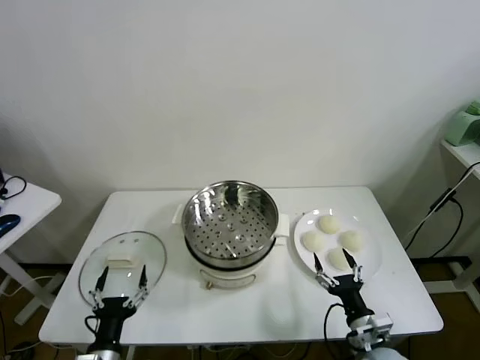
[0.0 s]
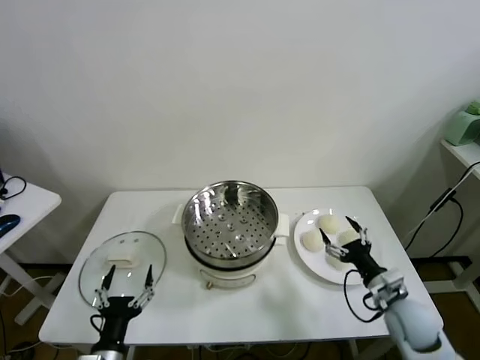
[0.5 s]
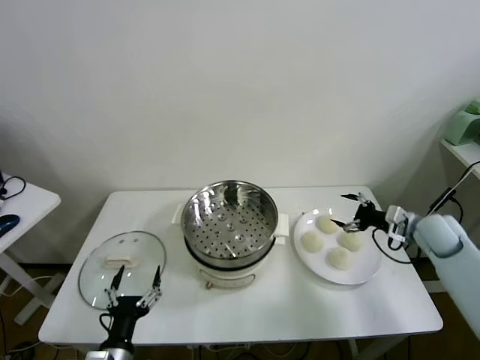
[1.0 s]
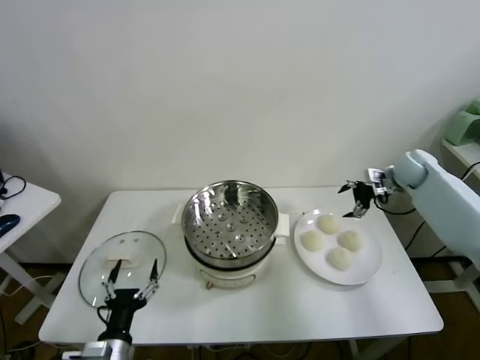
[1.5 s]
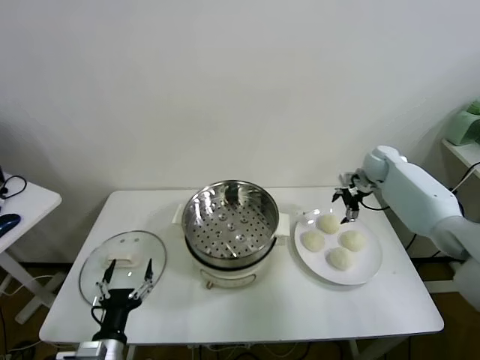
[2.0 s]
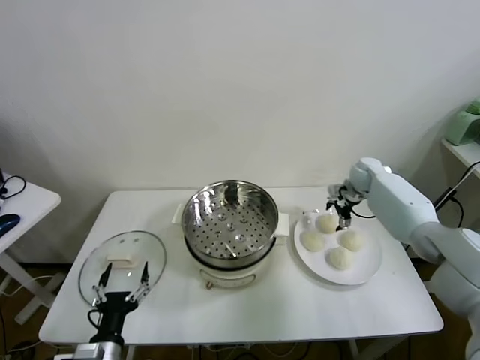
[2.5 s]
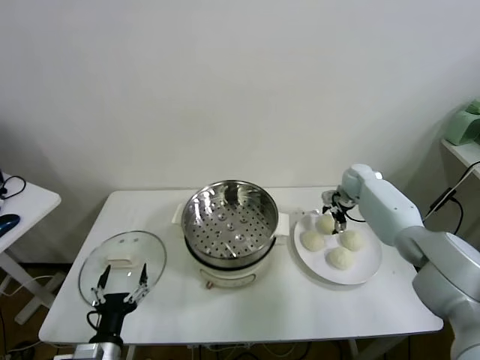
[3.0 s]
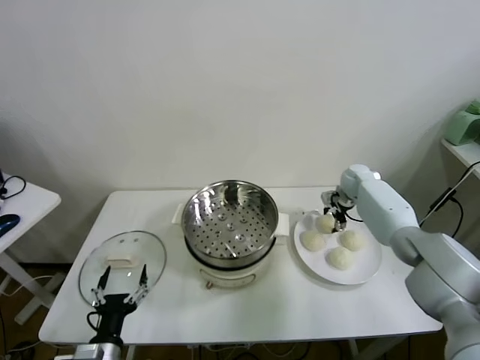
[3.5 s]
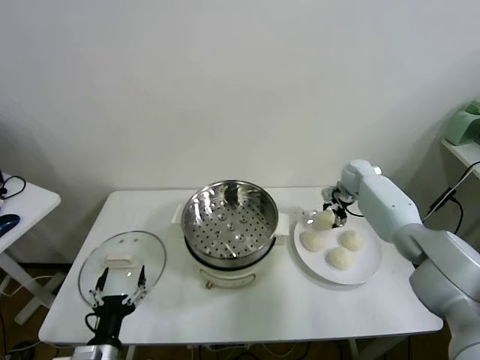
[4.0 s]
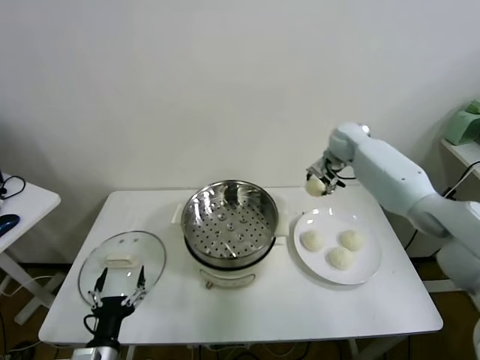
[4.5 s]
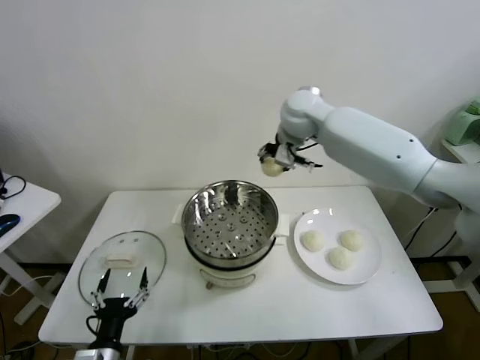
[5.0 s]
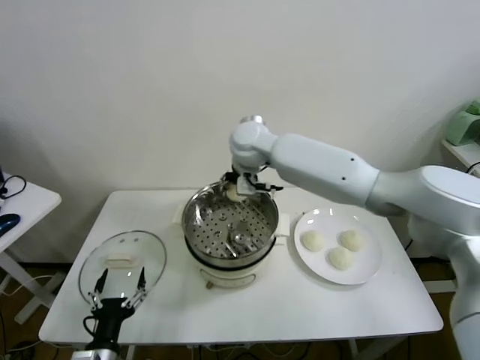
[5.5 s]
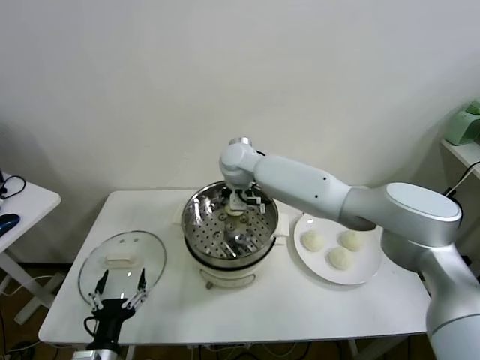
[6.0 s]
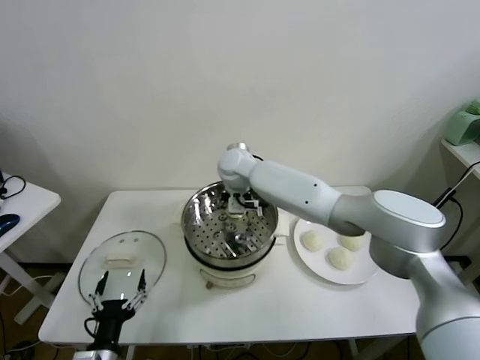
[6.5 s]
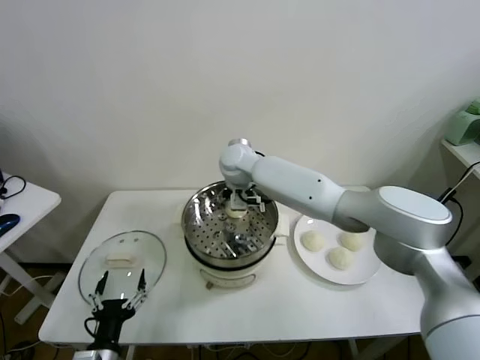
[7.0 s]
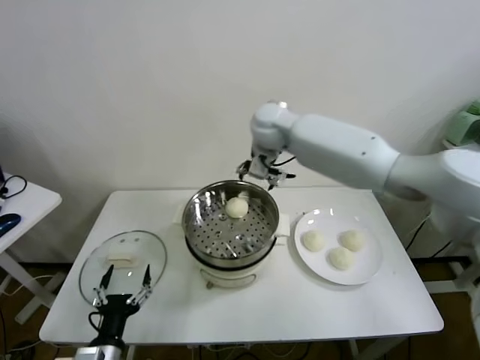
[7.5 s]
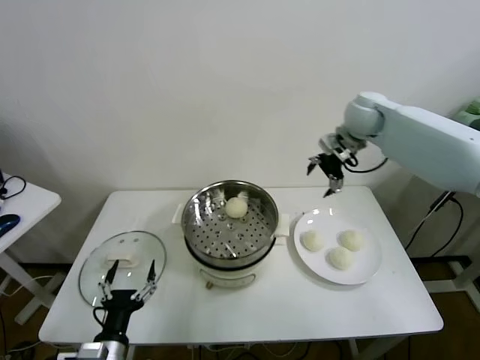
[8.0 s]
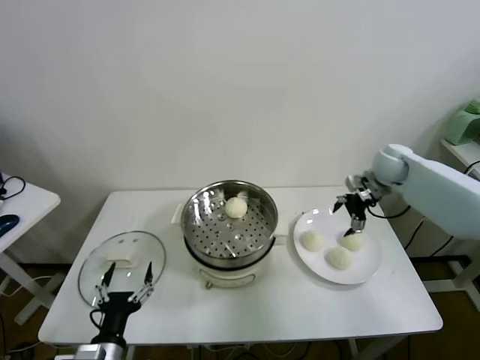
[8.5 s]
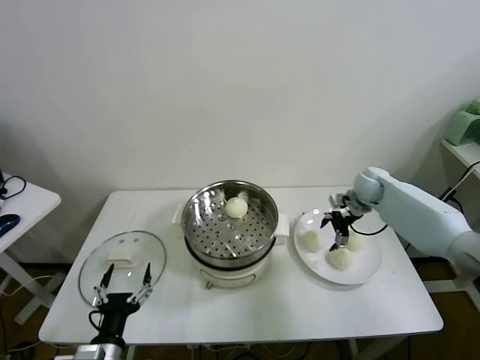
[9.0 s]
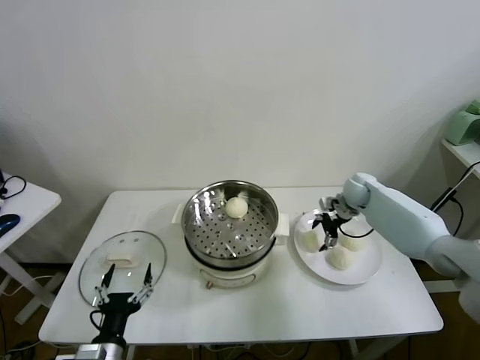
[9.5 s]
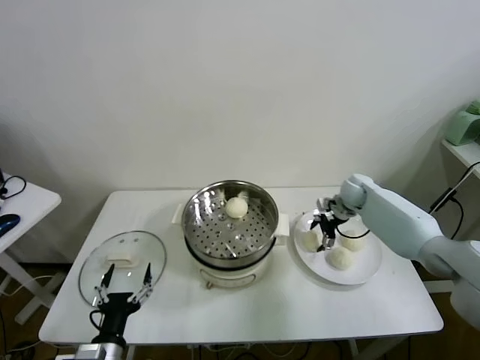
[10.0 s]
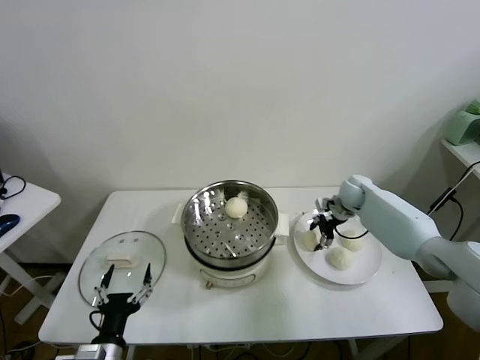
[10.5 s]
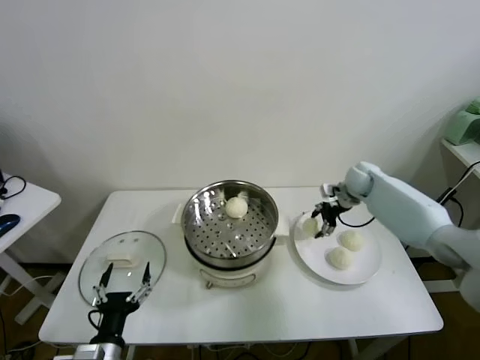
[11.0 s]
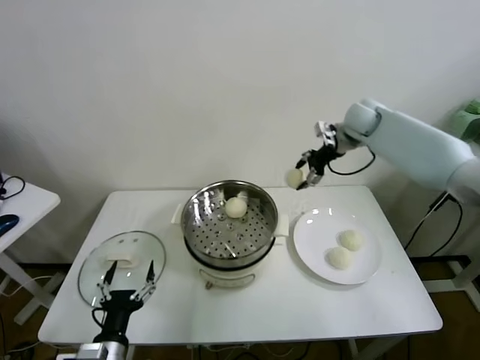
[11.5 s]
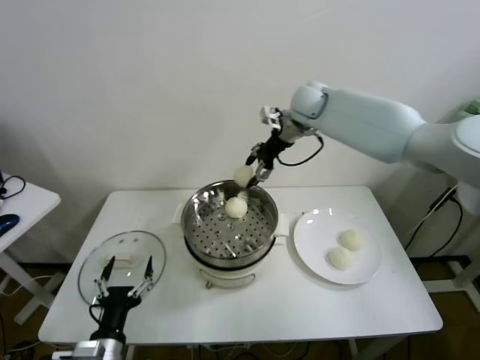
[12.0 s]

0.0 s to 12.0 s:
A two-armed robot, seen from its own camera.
Task of the whole recording: take steamed baozi put them in steamer.
Step, 0.0 to 3.5 s: Grasp the baozi in the plate with right gripper.
Step, 4.0 to 6.5 s: Place the baozi on the steamer with right gripper.
Step, 7.5 to 10.5 s: Grasp the baozi in the plate with right gripper.
2.0 to 4.0 s: The right gripper ends up about 5 cm from where it was, and closes up.
4.0 to 6.0 s: The right gripper travels to the left by some 35 cm.
6.0 to 8.0 s: The right gripper travels to the right by some 30 cm, and opens.
8.0 to 10.0 s: The right gripper moves downward, about 25 cm.
10.0 to 12.0 s: The right gripper heads upward and to the left, covering approximately 30 cm, and closes up.

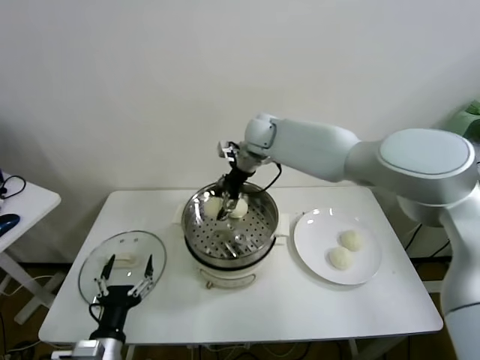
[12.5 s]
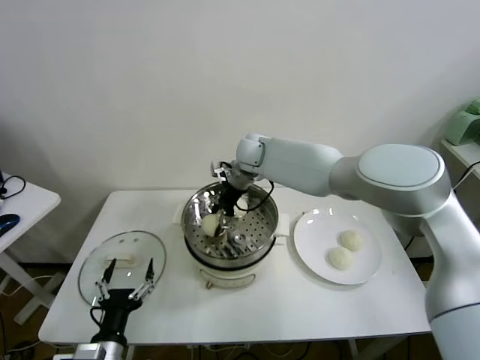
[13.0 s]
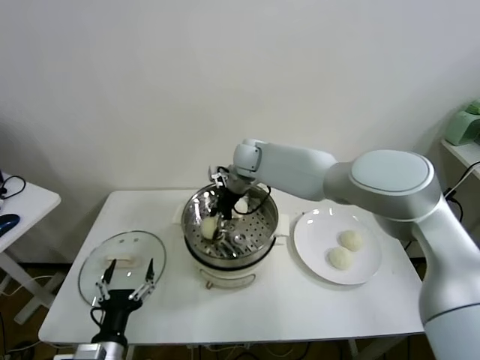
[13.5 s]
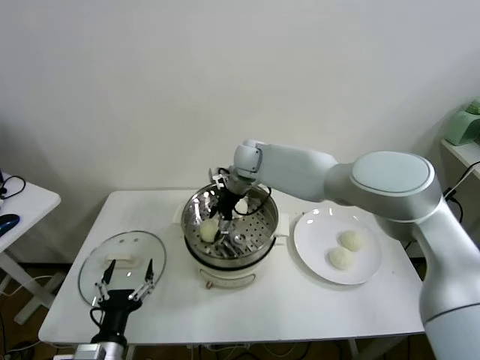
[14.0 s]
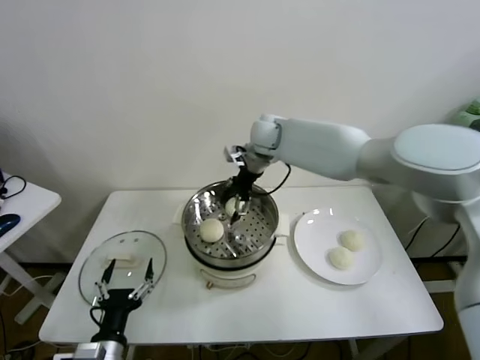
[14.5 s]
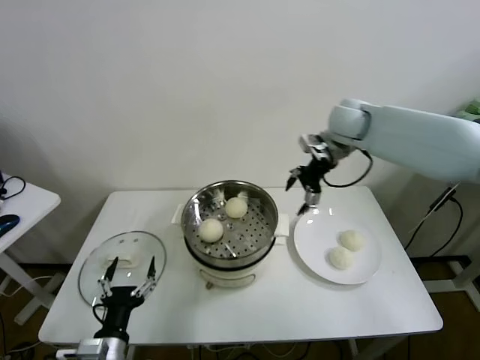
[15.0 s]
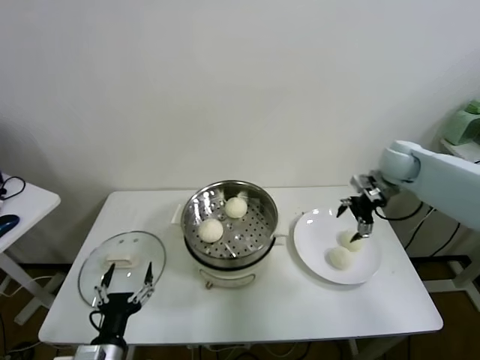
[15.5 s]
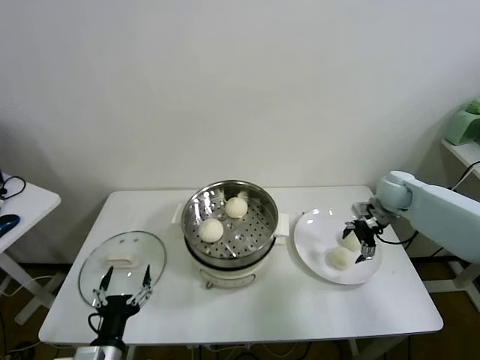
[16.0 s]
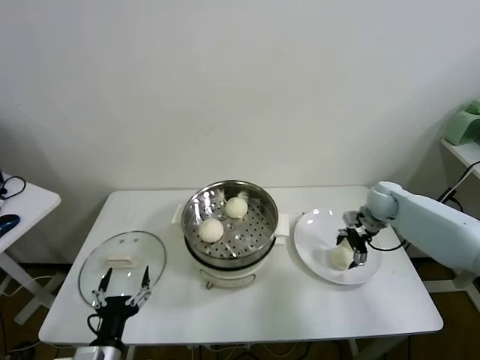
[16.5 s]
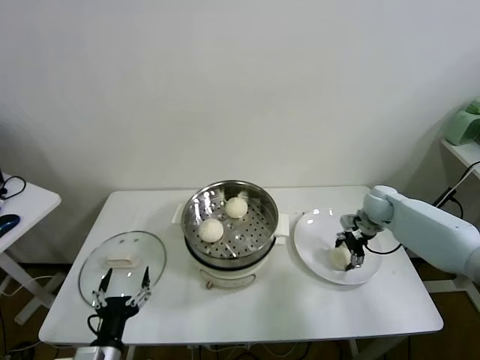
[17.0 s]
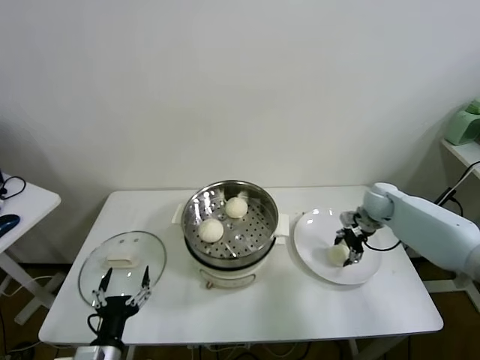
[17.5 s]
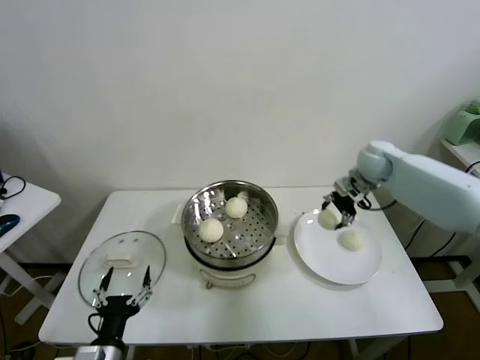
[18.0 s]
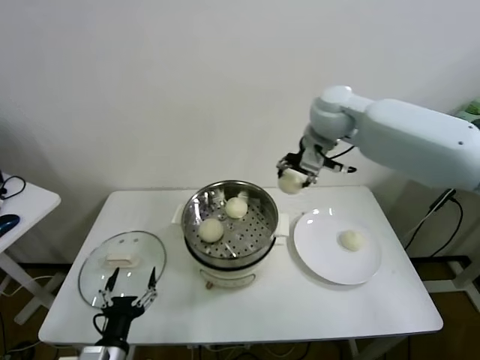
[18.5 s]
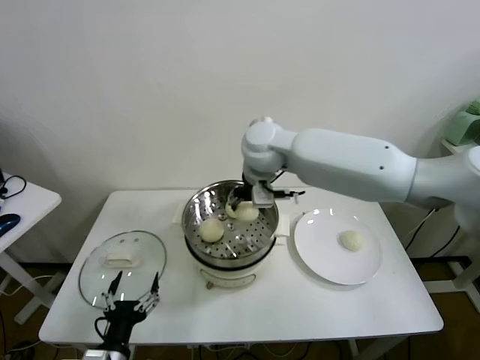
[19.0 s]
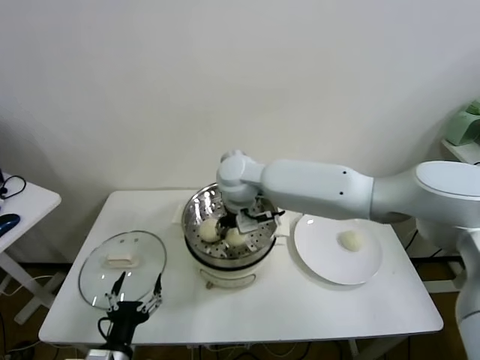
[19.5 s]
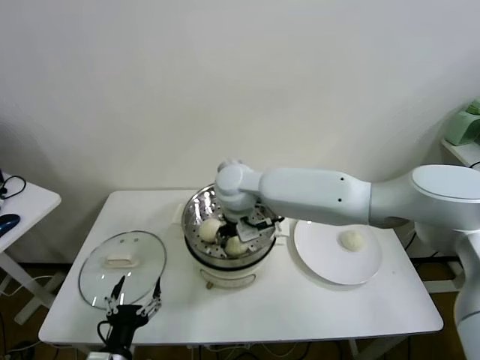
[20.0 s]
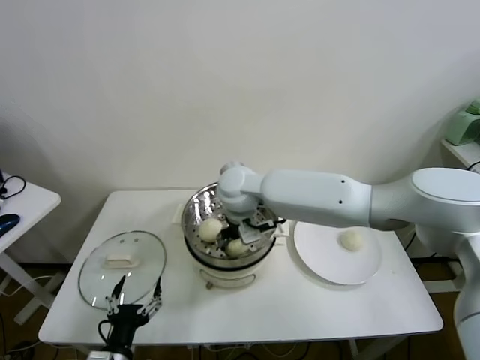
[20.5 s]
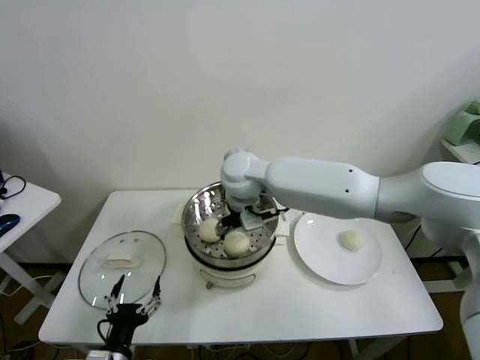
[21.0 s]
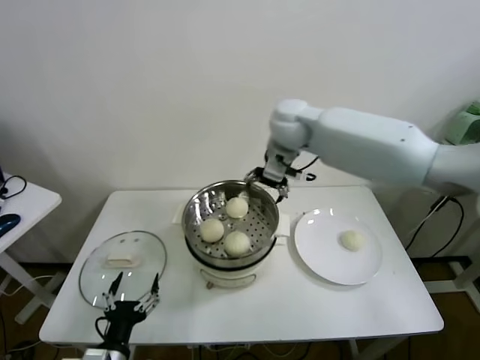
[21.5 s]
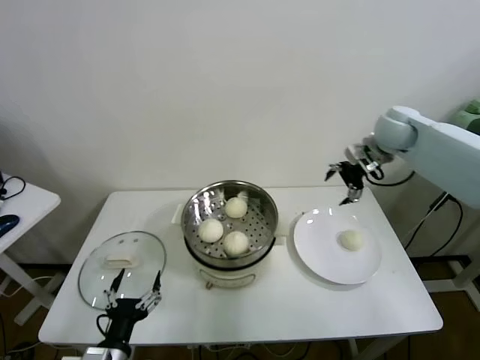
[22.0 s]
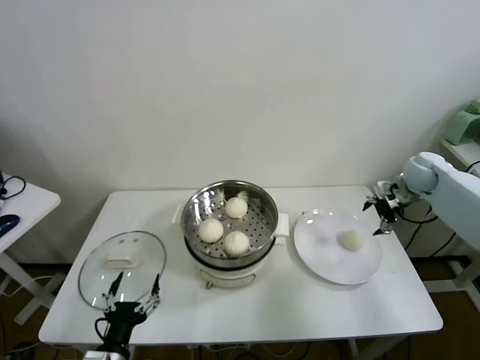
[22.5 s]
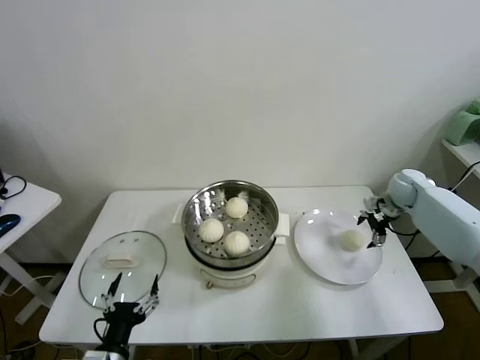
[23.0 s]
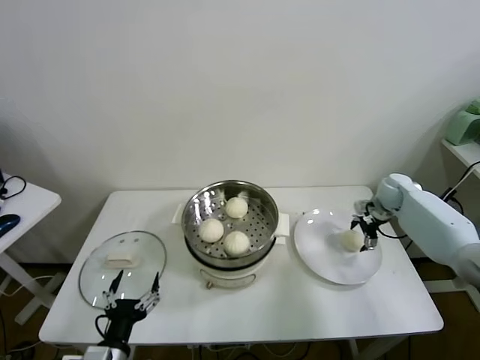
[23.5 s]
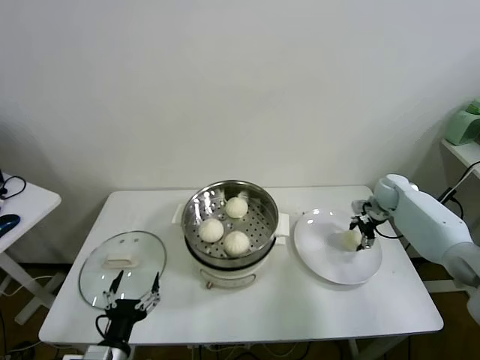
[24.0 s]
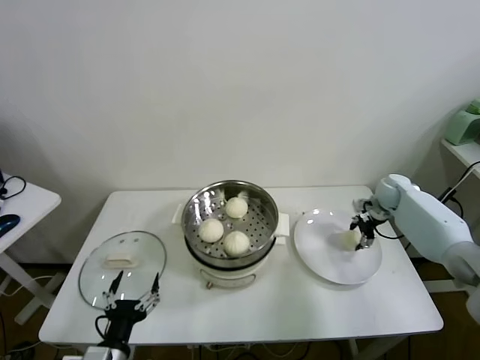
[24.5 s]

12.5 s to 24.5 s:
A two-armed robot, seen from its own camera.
Task of the whole recording: take steamed baozi put them in steamer.
Step, 14.5 to 17.0 s: Grasp the baozi in the plate with right gripper.
Step, 17.5 to 20.5 s: Place the baozi on the steamer with right gripper.
12.5 to 14.5 s: The right gripper travels downward and back again, about 5 cm each way, and opens.
14.5 to 16.5 s: The right gripper heads to the right and downward, covering some 35 cm.
16.5 to 18.5 s: The right gripper travels upward and to the left by some 35 cm, and closes.
18.5 to 20.5 s: The right gripper travels to the left and downward by some 25 cm, and opens its fingers.
20.5 to 22.5 s: The right gripper moves to the right, roughly 50 cm.
22.5 to 24.5 s: The right gripper shifts roughly 10 cm downward, and closes its fingers.

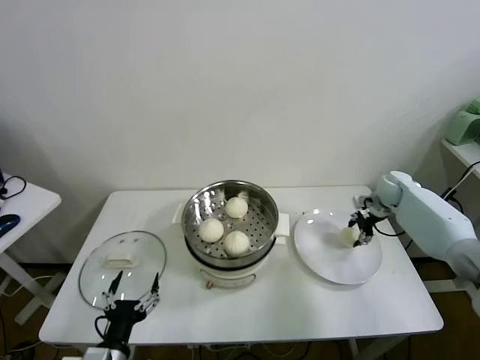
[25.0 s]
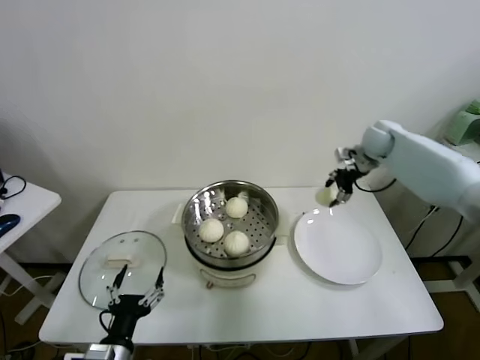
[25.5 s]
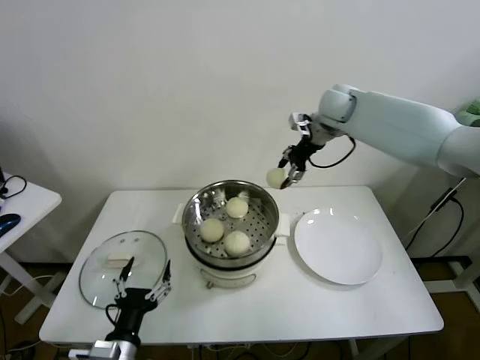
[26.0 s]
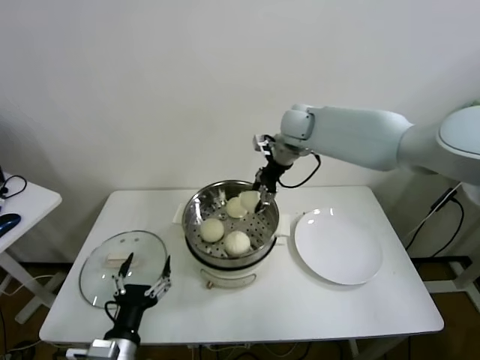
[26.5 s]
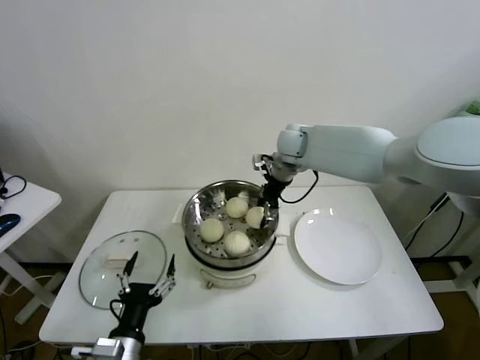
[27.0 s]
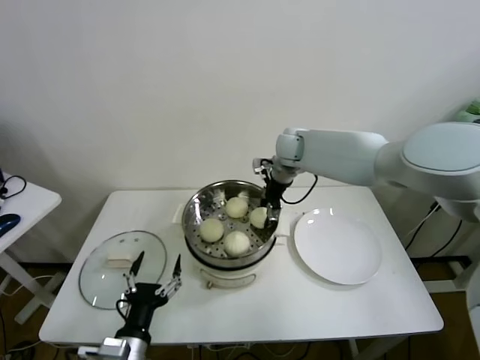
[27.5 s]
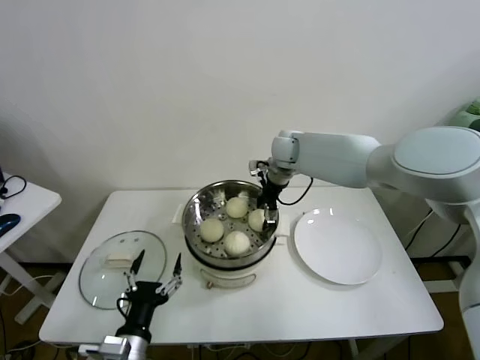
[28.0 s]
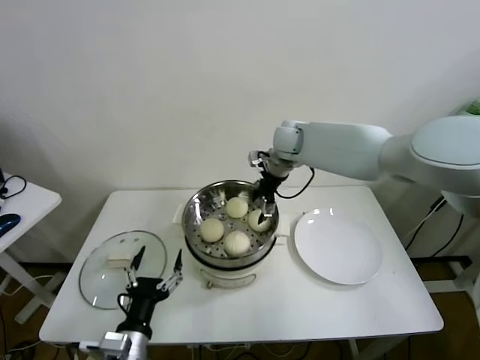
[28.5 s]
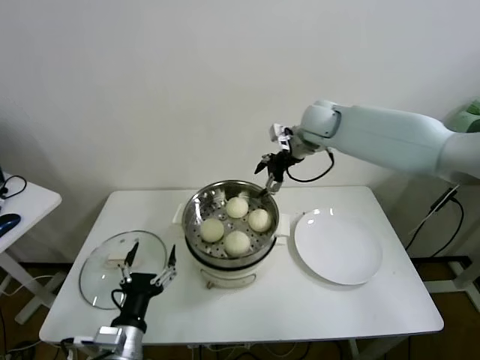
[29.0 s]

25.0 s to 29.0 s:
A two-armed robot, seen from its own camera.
Task of the whole recording: take steamed baozi put them in steamer.
Step, 25.0 to 28.0 s: Place the baozi on the steamer with right gripper.
25.0 to 27.0 s: The right gripper travels to the left and upward by about 35 cm.
27.0 to 29.0 s: The right gripper heads upward, covering about 5 cm, and opens up.
